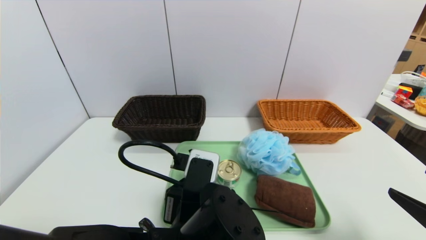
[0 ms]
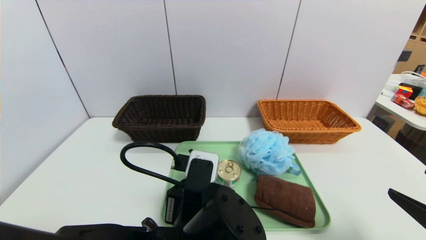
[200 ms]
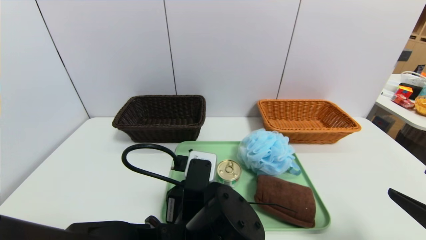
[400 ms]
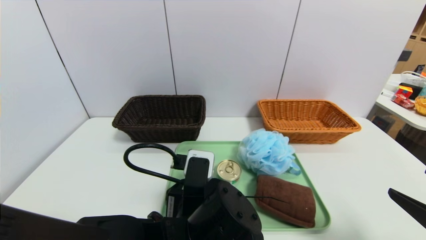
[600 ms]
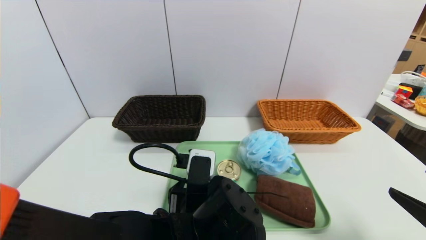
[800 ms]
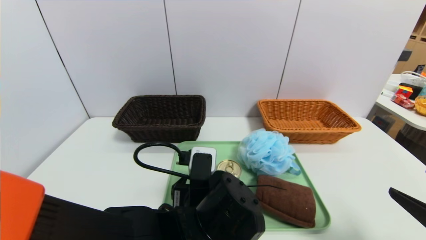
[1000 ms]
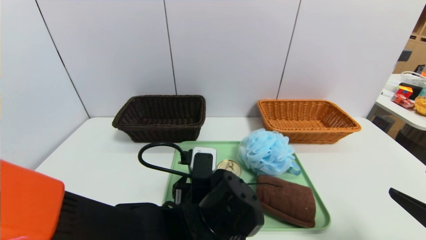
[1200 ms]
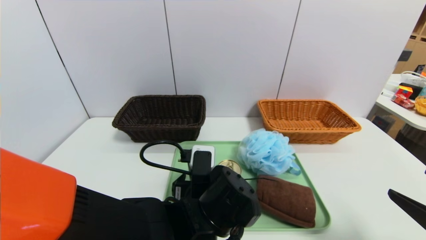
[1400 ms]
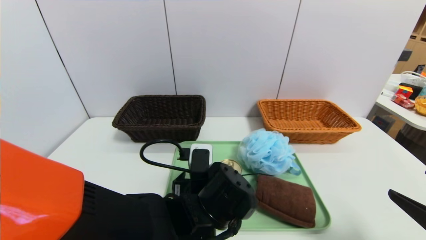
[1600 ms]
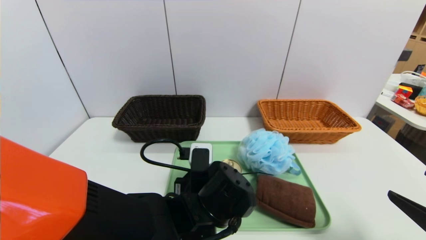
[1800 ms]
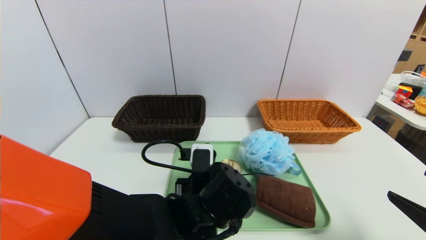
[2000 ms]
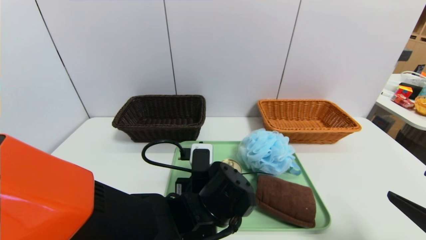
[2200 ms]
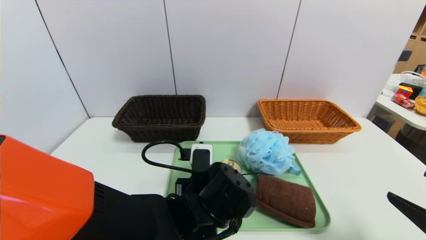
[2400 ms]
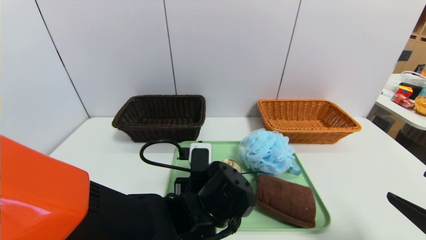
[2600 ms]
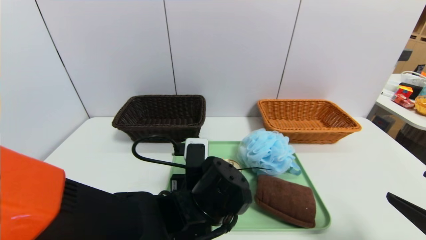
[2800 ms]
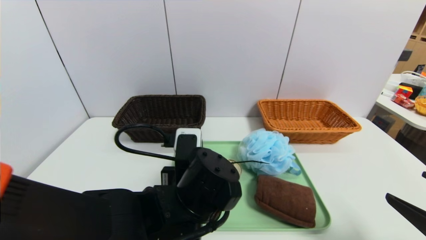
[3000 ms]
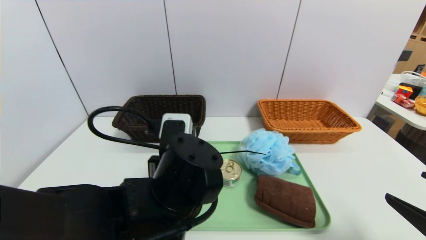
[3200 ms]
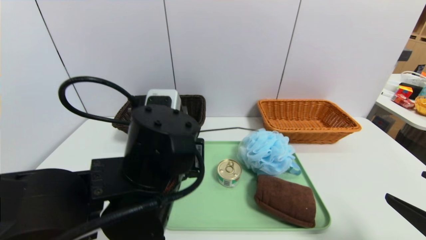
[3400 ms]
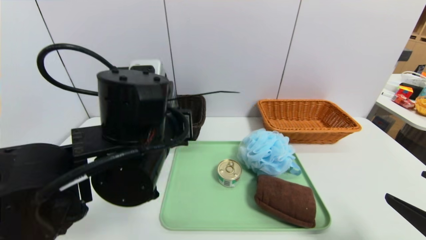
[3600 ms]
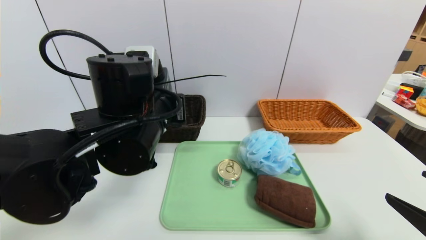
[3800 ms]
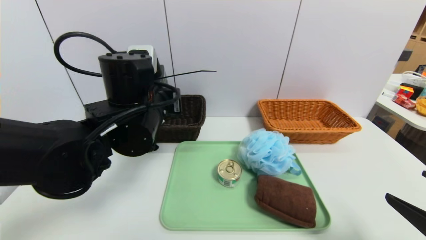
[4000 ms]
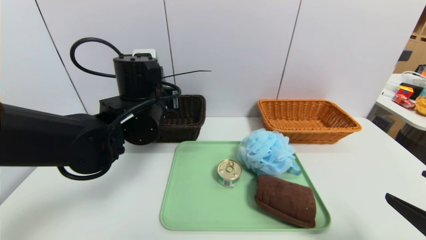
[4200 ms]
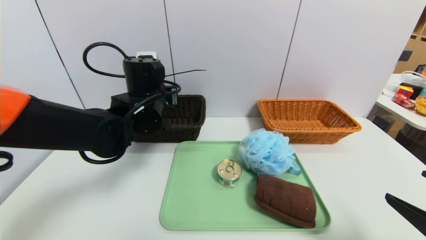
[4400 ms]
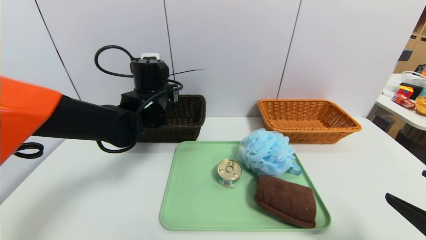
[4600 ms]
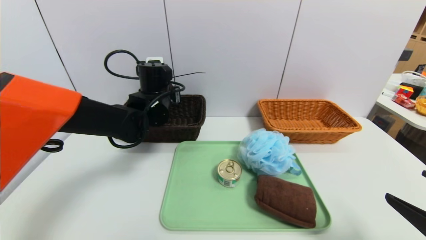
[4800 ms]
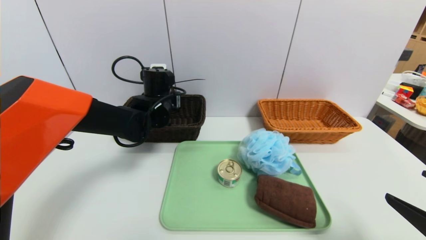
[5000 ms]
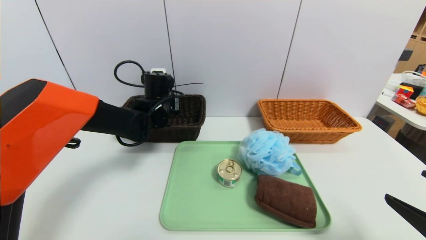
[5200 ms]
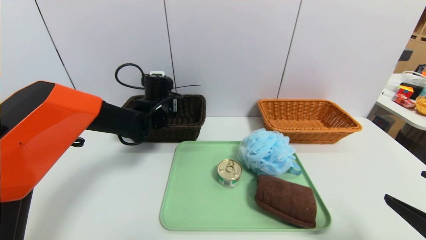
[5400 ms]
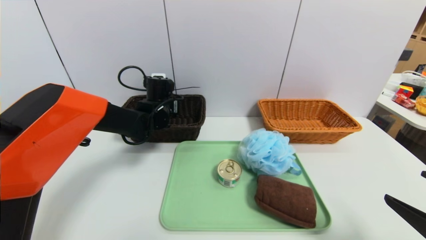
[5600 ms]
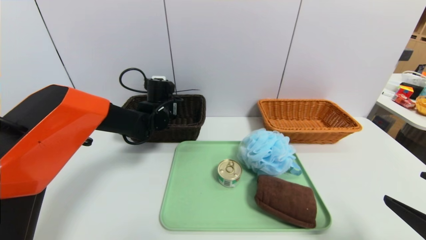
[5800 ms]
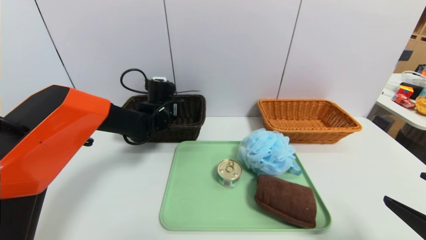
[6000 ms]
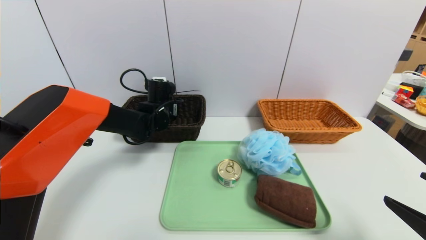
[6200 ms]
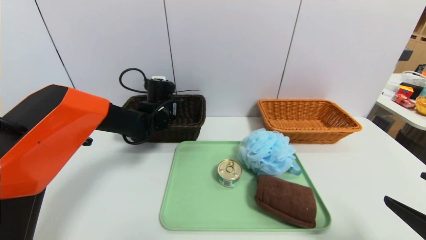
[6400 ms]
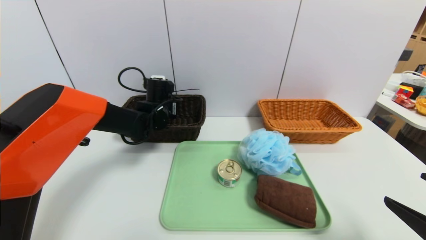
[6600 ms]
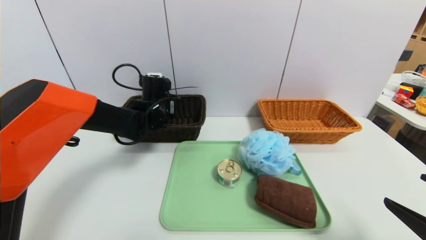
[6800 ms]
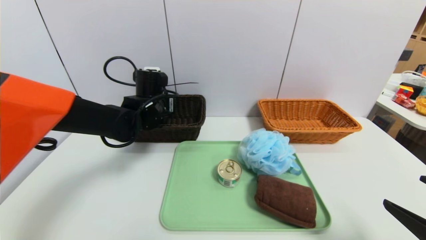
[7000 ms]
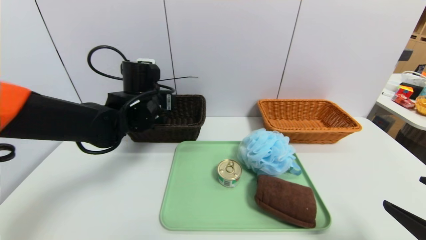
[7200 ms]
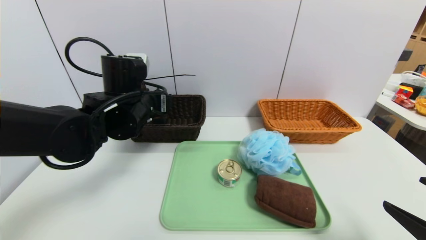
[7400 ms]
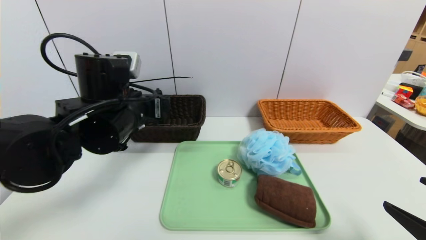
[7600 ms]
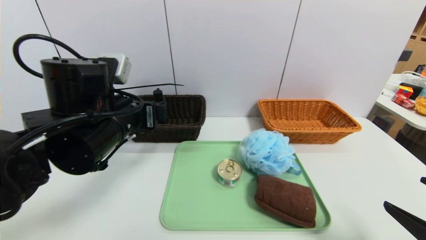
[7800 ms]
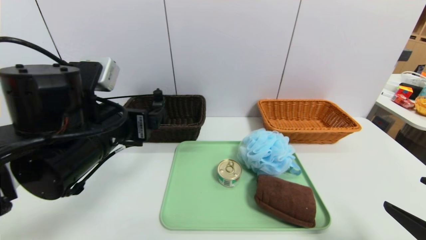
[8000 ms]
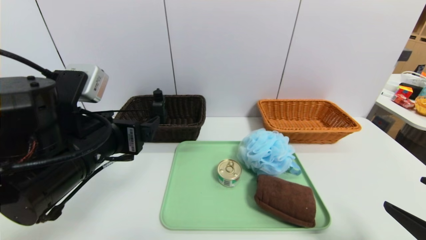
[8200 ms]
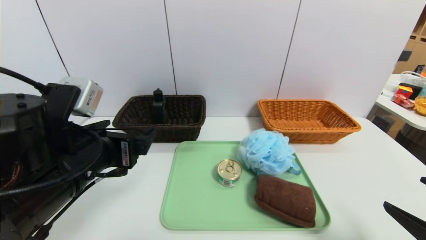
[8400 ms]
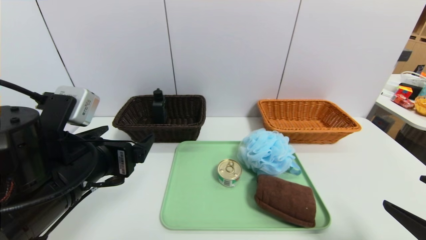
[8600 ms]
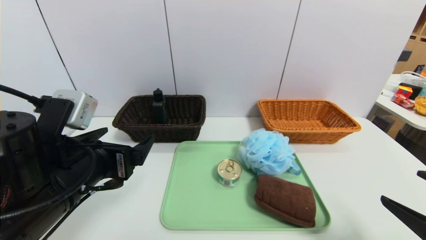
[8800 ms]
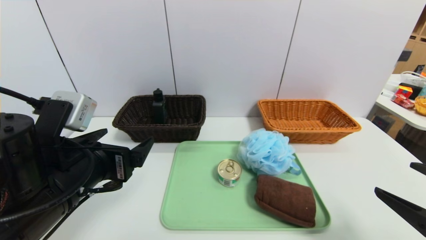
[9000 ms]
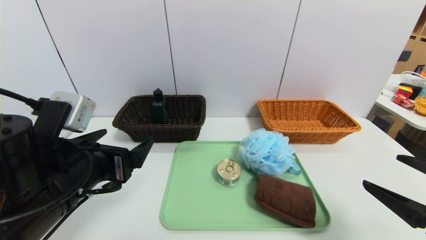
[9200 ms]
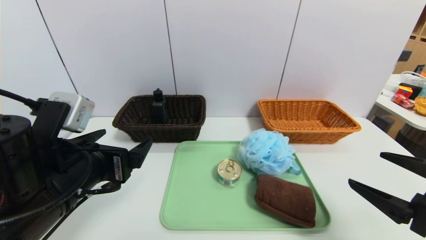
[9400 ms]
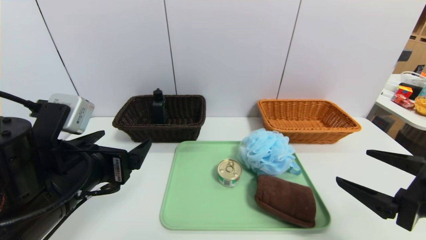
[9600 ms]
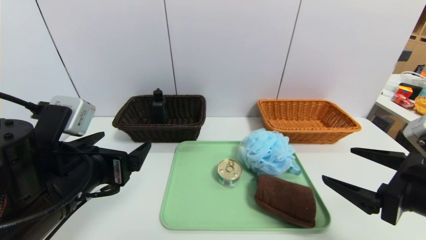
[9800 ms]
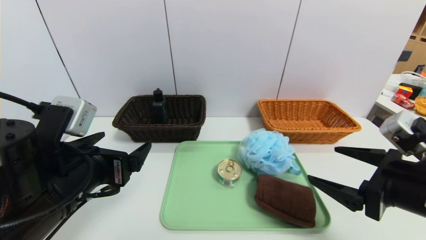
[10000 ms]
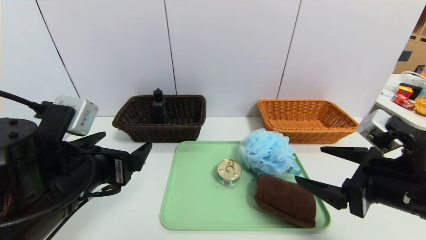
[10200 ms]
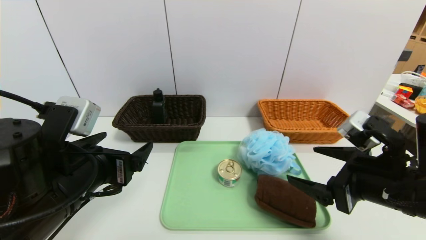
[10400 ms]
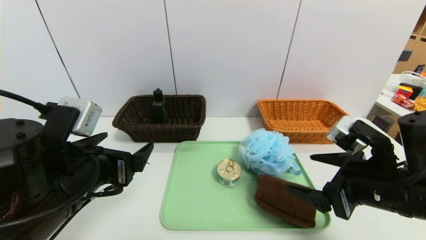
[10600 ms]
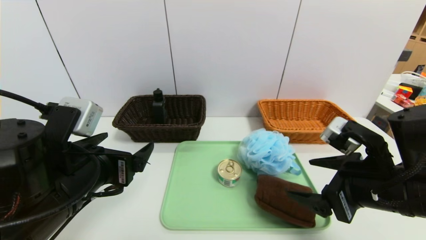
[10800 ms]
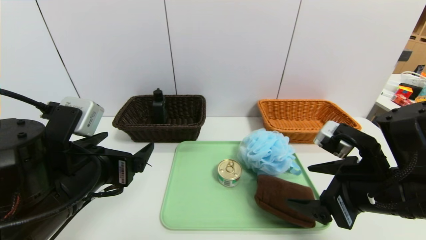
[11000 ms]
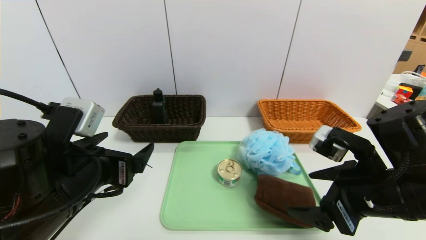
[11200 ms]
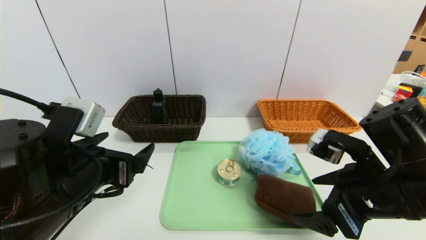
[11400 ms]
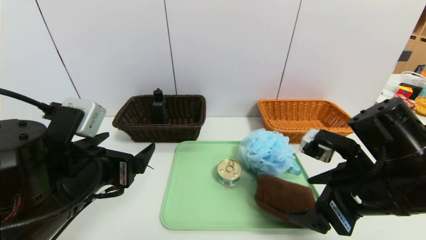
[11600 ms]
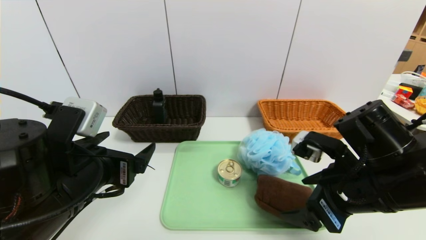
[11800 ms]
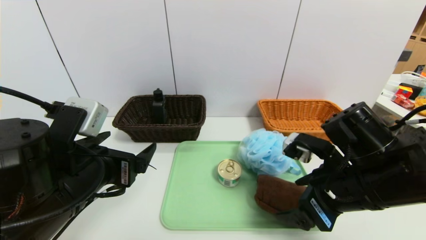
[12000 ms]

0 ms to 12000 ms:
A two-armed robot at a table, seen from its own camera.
Task of the whole recording: place the food in the right basket with the right gripper, and place the non food items in the left basket with the left gripper.
Step, 0 ms to 7400 ms: Grasp the hard cleanser and put it in the left basket.
0 ms to 1600 ms: The left gripper travels forward by roughly 5 cm.
1600 ms to 3000 ms: The left gripper closes up.
3000 ms to 4400 ms: The left gripper shifts some 20 cm forward, to the left and upward.
4400 ms to 6000 ms: The left gripper heads forward and downward, covering about 15 cm.
6000 ms to 7600 ms: The left gripper travels backward and upward by some 20 cm, and opens its fingers.
7600 ms to 9000 ms: The left gripper shifts some 10 cm backward.
9000 ms to 10400 ms: The right gripper heads to the left and forward, covering approximately 10 cm.

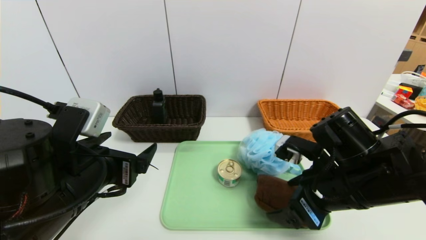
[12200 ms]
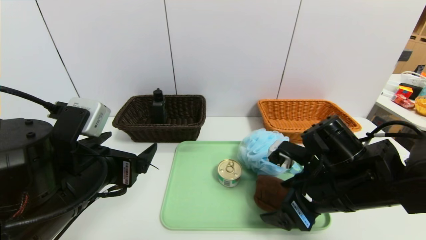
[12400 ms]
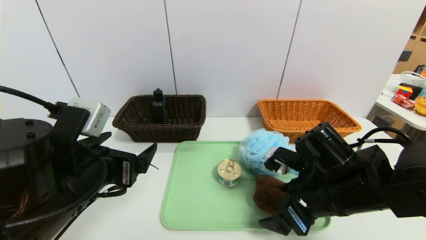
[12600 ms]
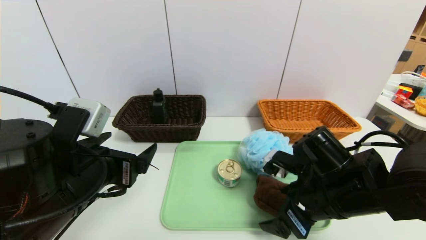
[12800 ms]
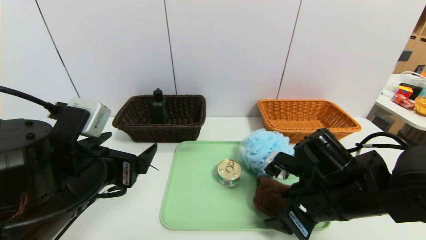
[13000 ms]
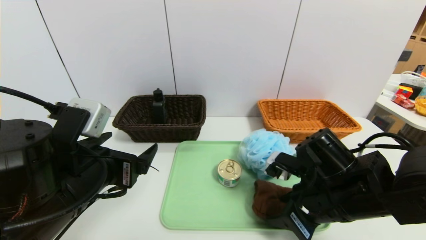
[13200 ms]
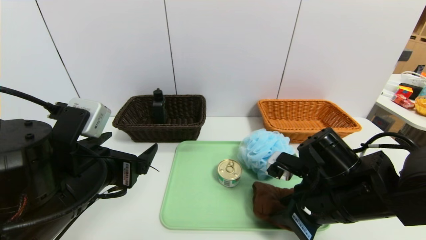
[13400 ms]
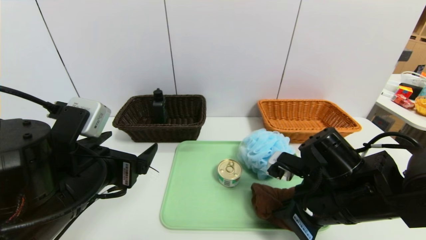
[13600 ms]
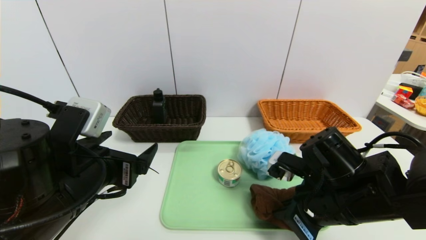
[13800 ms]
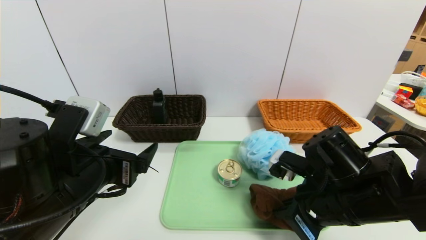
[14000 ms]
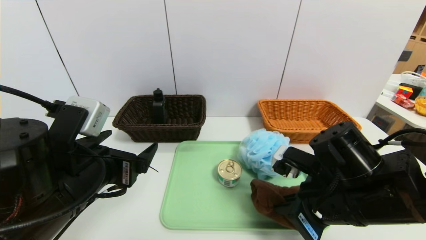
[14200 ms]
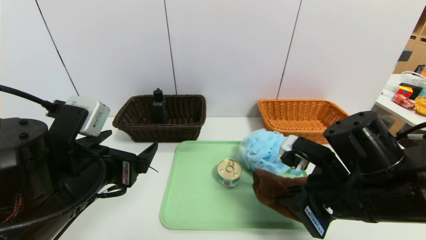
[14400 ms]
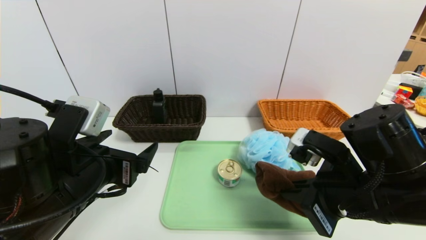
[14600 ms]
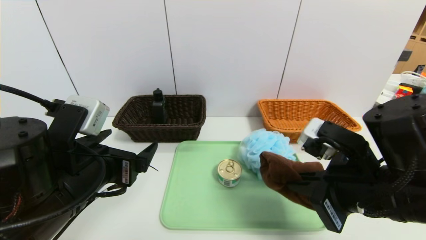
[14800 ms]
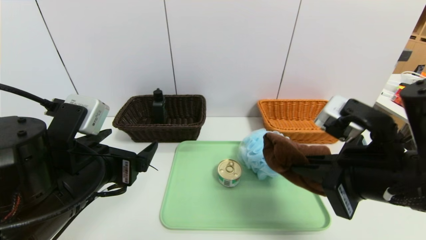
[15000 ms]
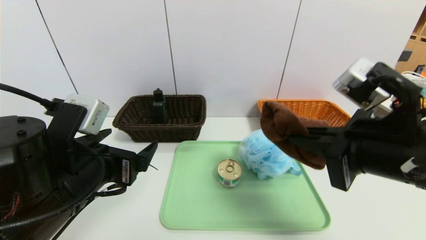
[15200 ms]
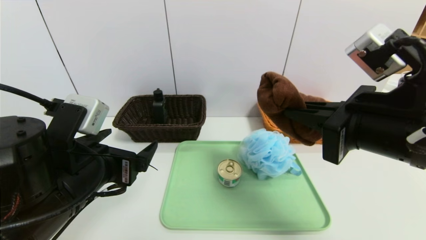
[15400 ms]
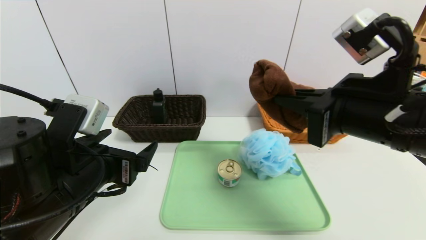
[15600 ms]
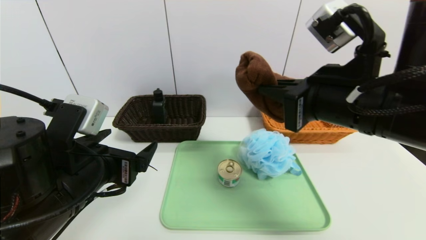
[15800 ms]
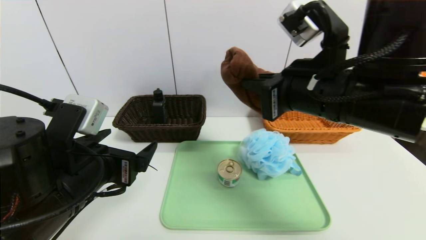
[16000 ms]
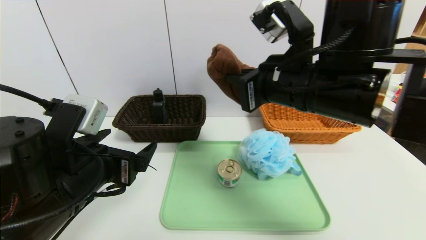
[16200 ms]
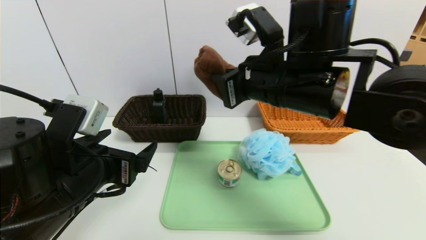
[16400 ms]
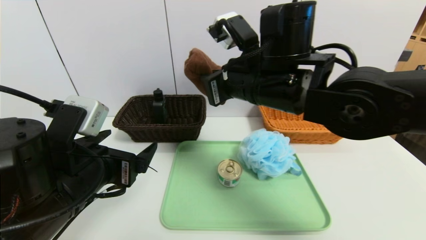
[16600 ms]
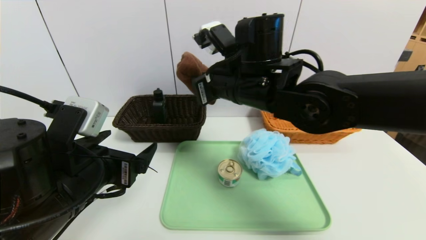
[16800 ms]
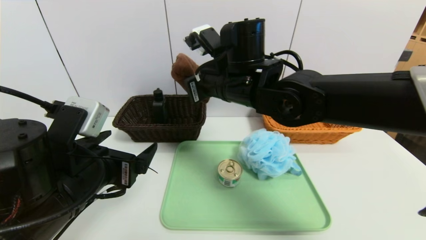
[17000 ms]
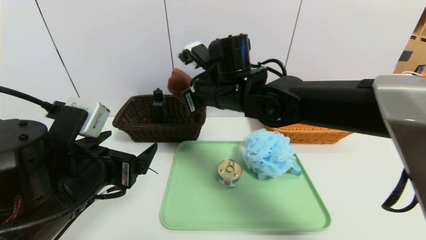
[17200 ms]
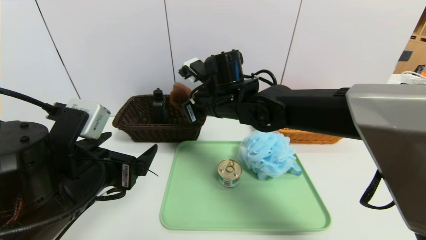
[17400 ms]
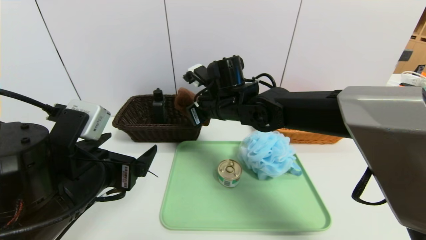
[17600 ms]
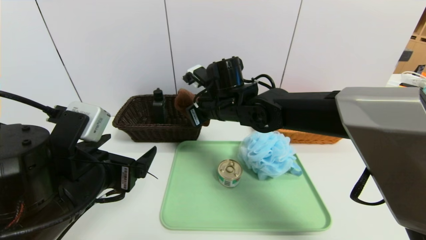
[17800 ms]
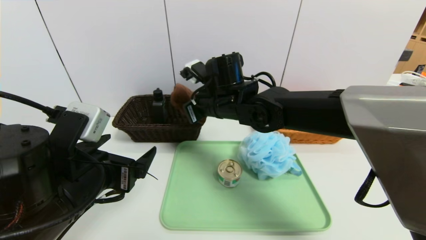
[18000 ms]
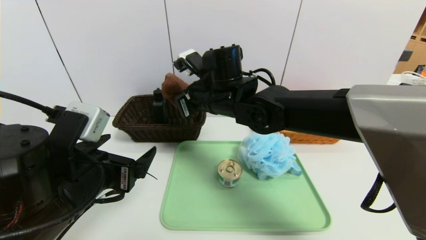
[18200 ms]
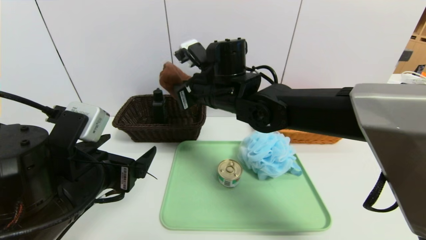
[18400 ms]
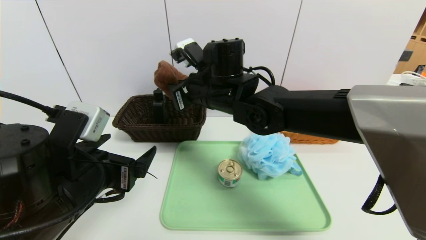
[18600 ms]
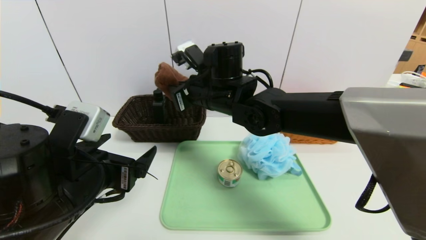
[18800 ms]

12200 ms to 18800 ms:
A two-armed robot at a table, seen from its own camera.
Task of the whole recording: place the food in the right basket with the right gripper, and place the non food items in the left basket with the left gripper.
12200 ms to 13800 ms: The right gripper closes its fingers.
13800 ms to 15400 ms: The right gripper goes about 15 cm upward.
15400 ms to 17200 ms: The right gripper goes some 25 cm to the left and forward.
17200 ms to 18800 ms: The grippers move only a little.
